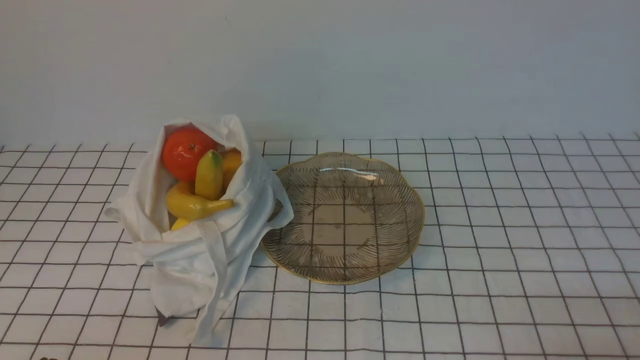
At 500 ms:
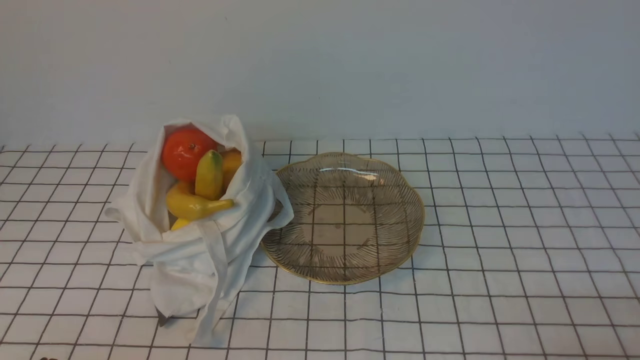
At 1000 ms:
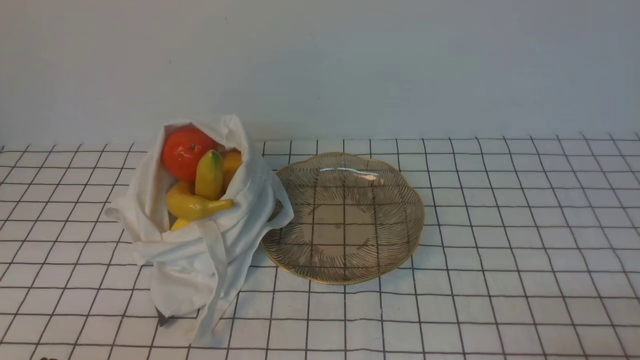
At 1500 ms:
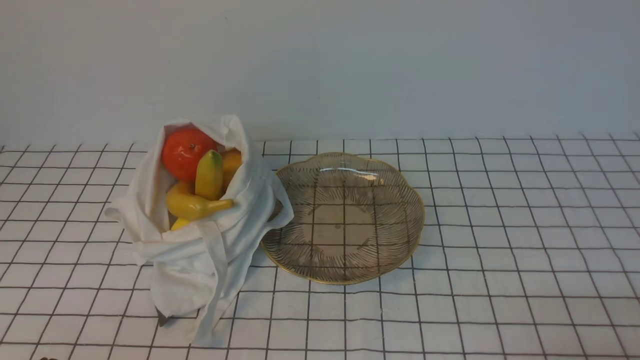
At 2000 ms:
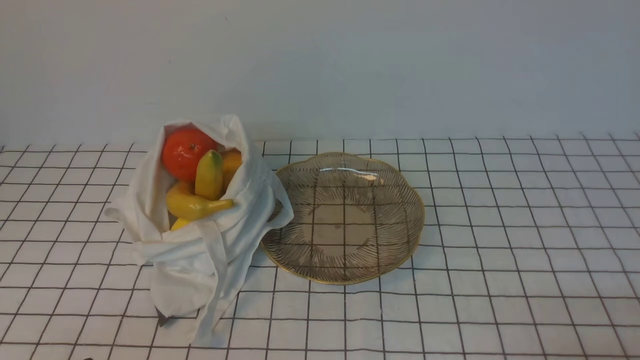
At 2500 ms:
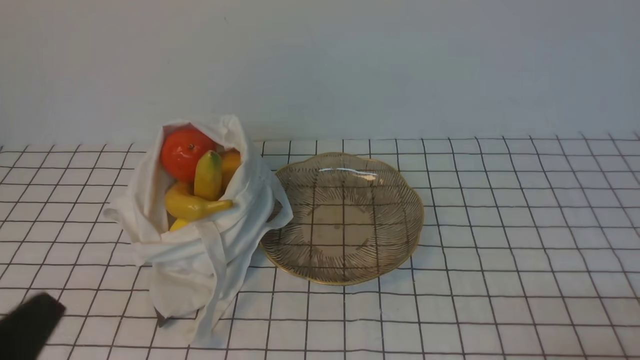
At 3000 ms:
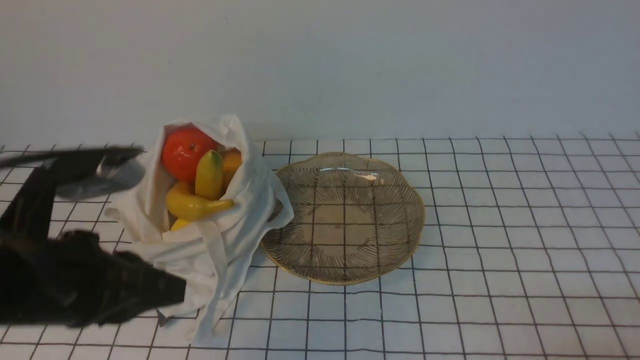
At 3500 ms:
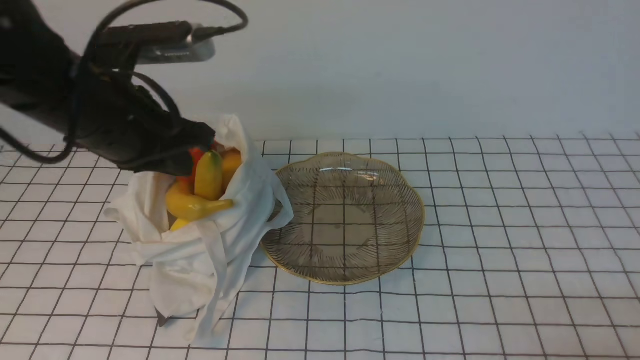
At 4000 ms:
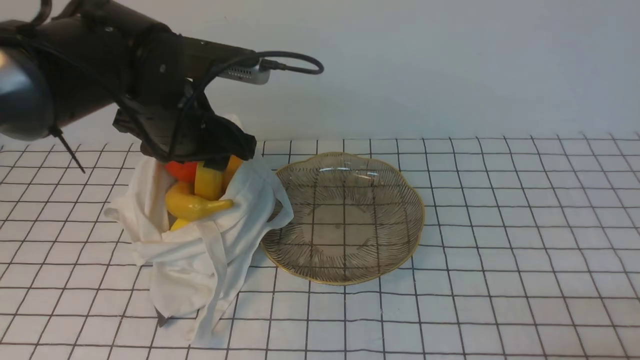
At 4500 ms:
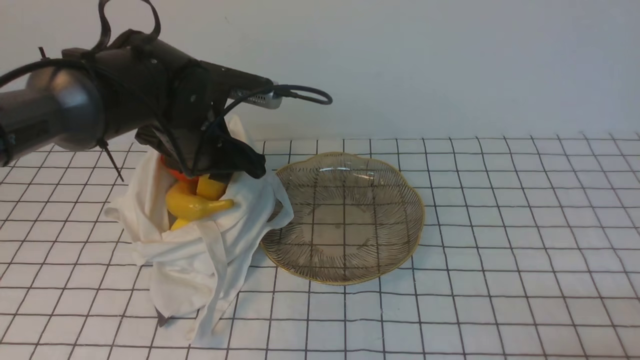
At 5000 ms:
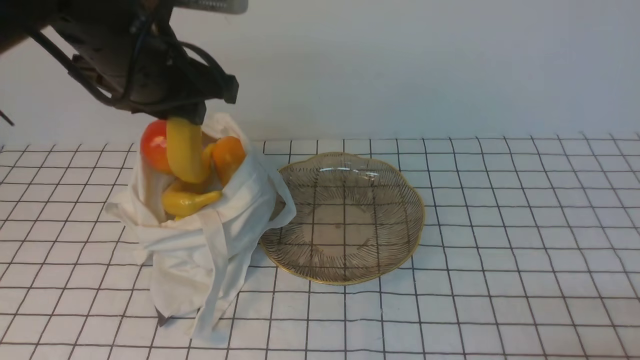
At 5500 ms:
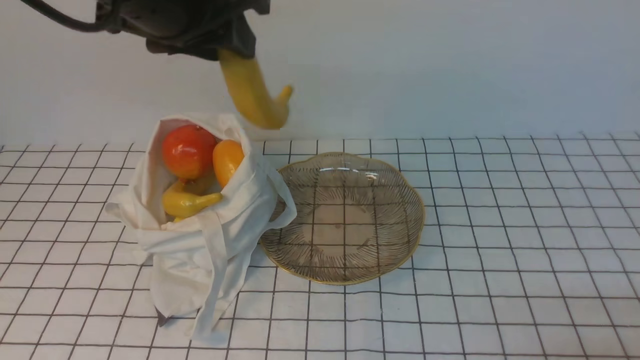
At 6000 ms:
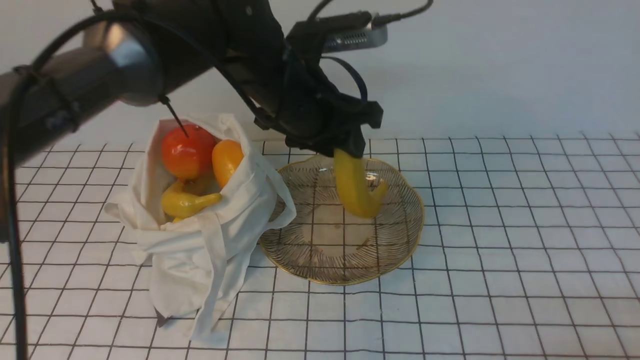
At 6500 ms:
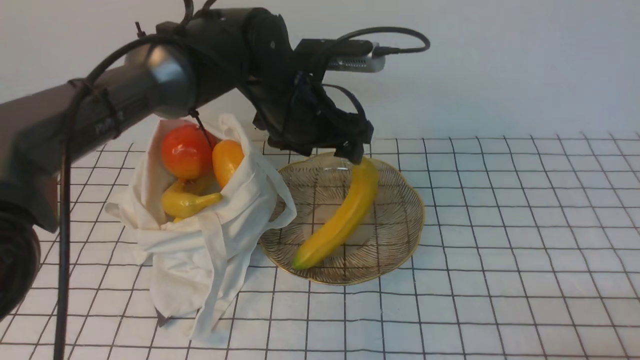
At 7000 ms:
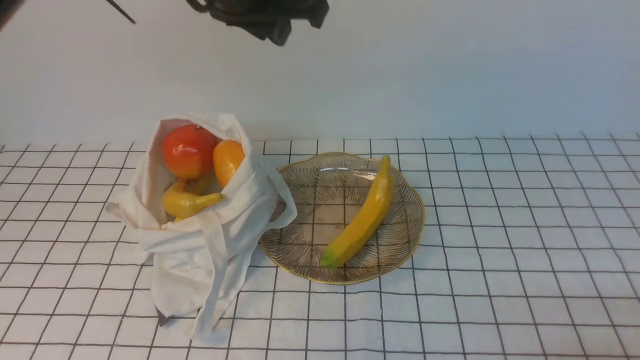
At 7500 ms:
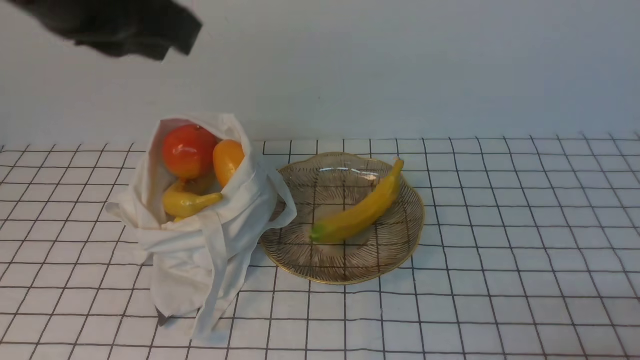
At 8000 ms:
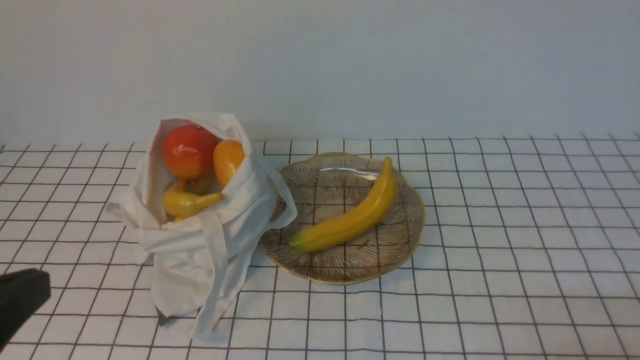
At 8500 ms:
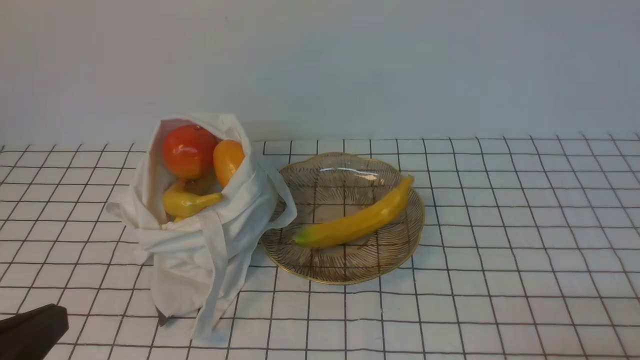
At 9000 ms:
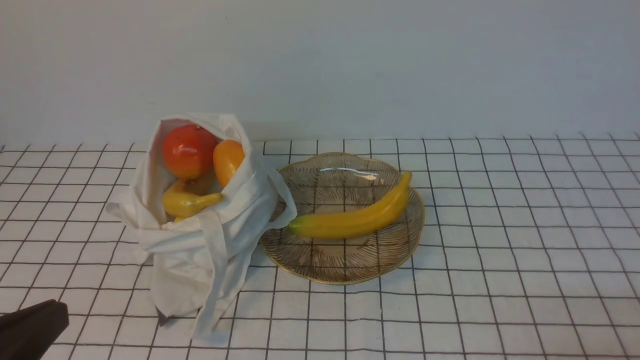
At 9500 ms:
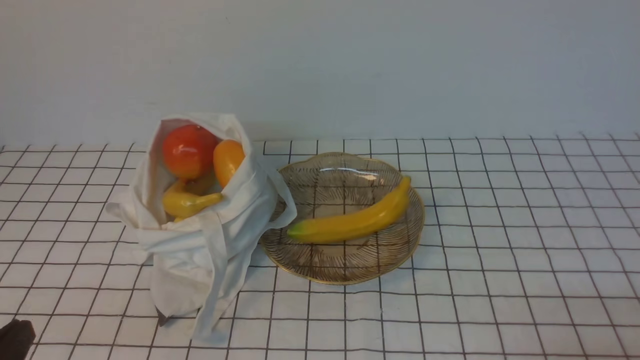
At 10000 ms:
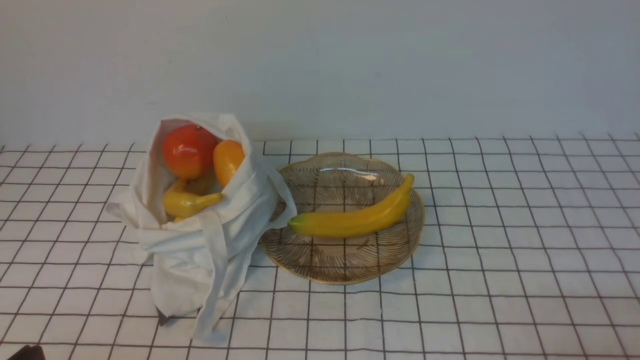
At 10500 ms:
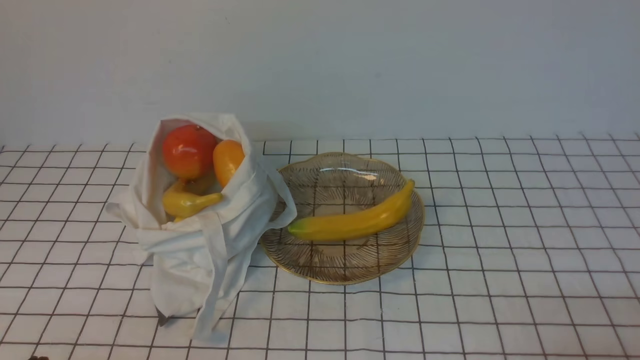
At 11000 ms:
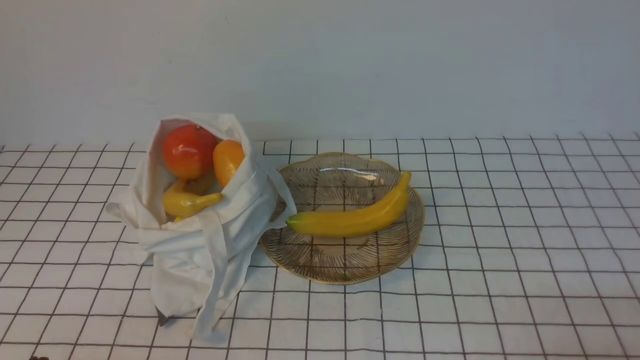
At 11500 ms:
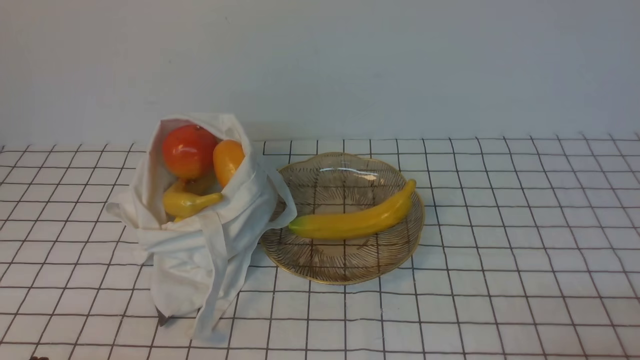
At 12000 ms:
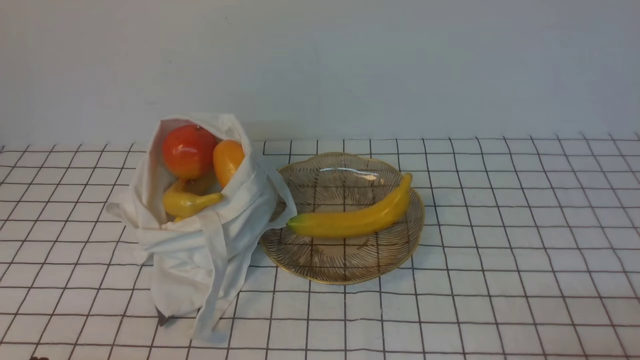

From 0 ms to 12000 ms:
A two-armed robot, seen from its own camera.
Step, from 0 ms to 4500 ms: use the left arm to grab a banana from the bag.
Step, from 5000 ms to 6000 ms: use the left arm to put the banana into the empty plate on the right.
From 2000 ms to 4000 ms: The left gripper goes approximately 30 cm forward and upward, and opens its fingers.
From 4000 ms to 6000 ms: The left gripper moves up and down over approximately 15 cm, changing direction 2 times.
From 6000 ms to 8000 ms: The left gripper travels backward and to the left by about 30 cm, and closes up.
From 8000 ms to 10000 ms: The left gripper travels downward by approximately 20 cm.
